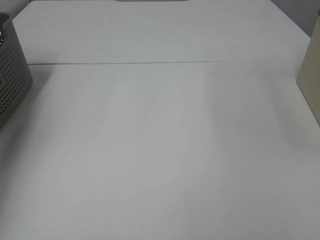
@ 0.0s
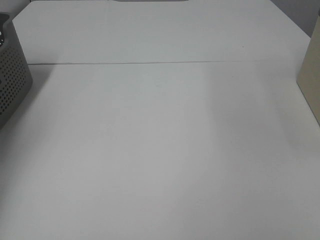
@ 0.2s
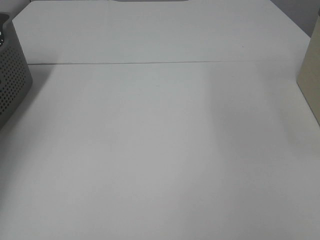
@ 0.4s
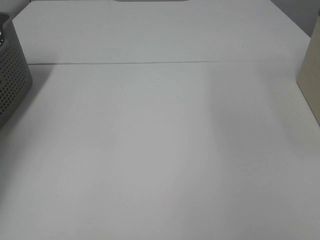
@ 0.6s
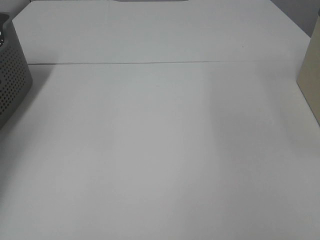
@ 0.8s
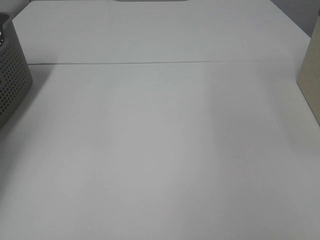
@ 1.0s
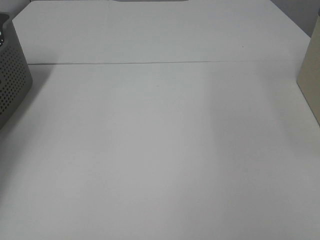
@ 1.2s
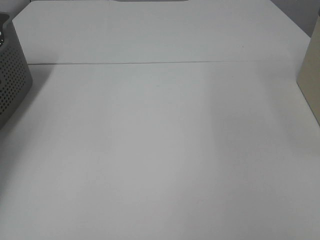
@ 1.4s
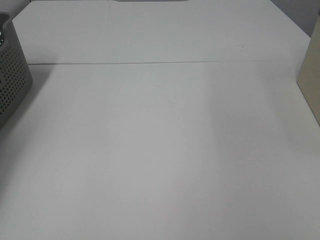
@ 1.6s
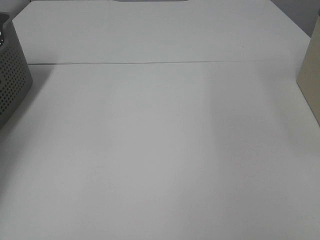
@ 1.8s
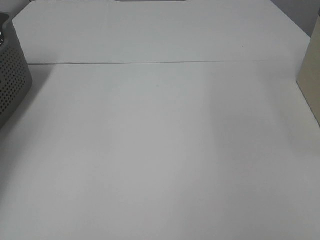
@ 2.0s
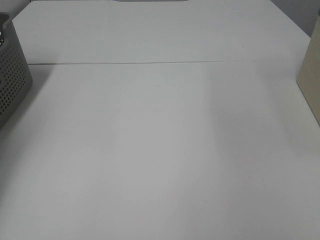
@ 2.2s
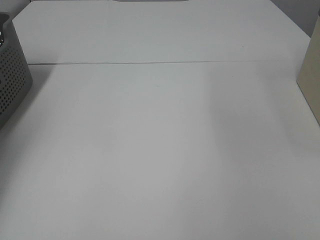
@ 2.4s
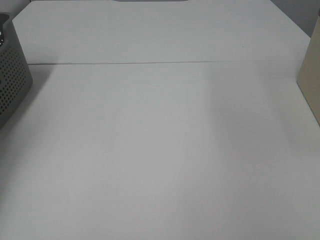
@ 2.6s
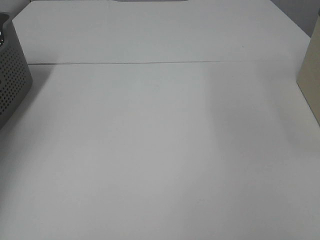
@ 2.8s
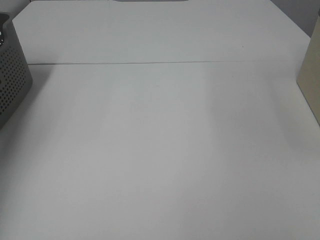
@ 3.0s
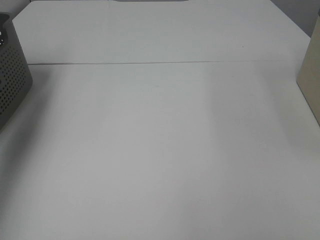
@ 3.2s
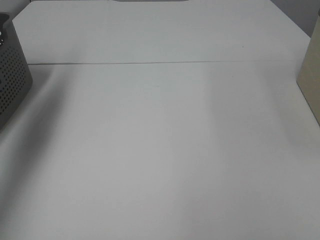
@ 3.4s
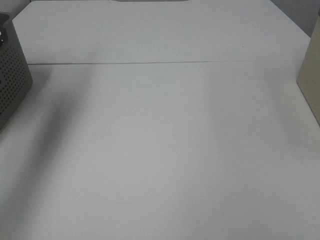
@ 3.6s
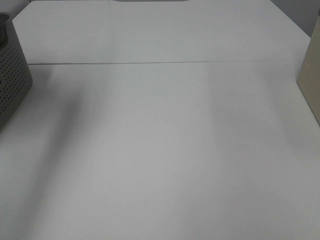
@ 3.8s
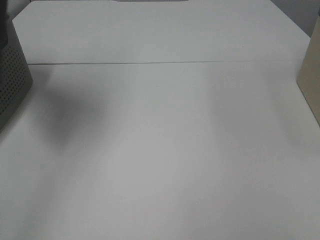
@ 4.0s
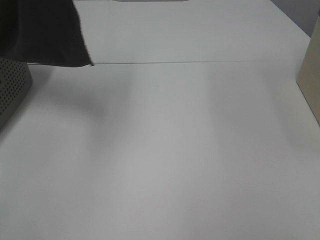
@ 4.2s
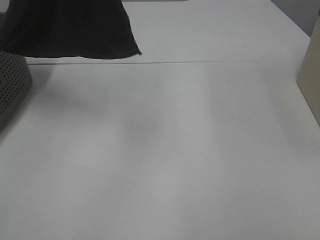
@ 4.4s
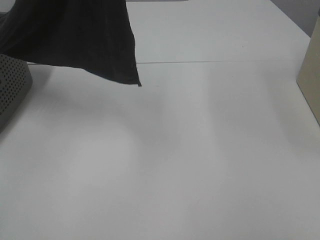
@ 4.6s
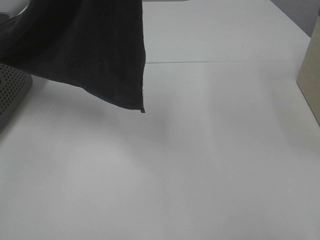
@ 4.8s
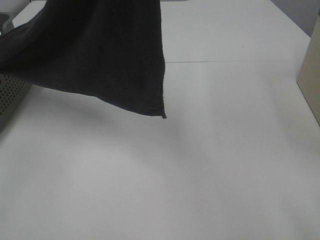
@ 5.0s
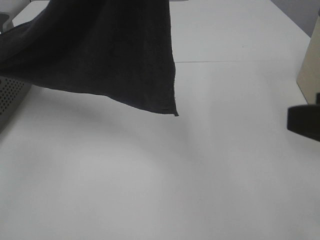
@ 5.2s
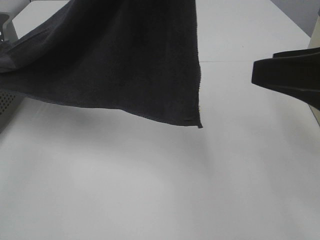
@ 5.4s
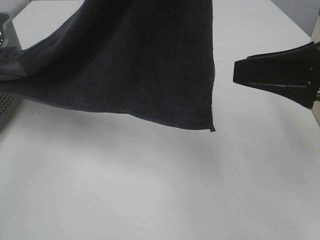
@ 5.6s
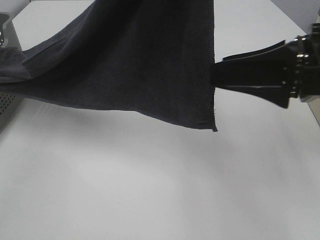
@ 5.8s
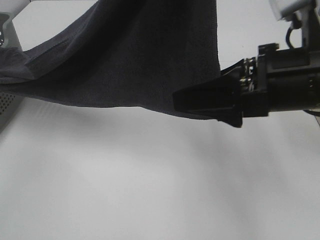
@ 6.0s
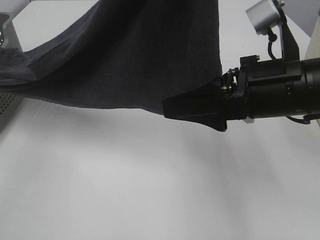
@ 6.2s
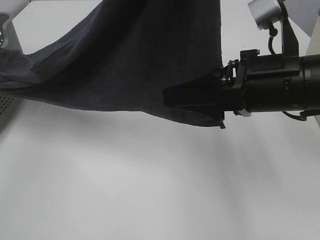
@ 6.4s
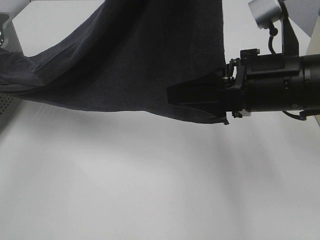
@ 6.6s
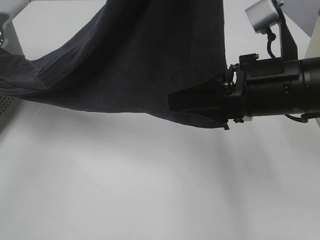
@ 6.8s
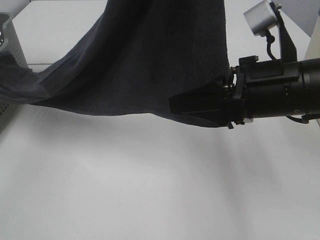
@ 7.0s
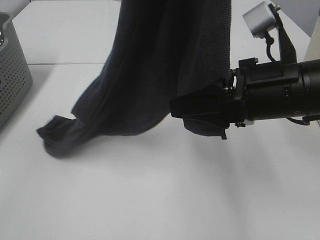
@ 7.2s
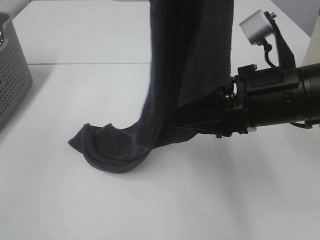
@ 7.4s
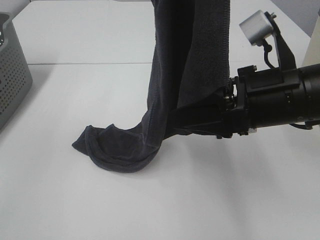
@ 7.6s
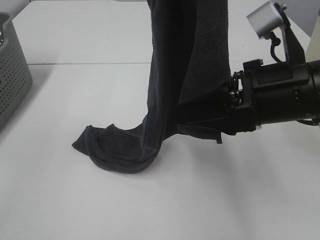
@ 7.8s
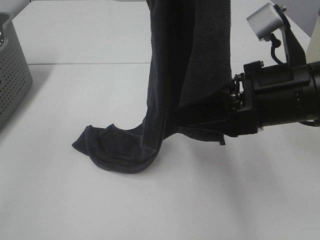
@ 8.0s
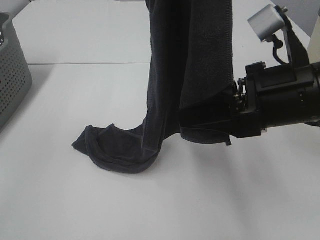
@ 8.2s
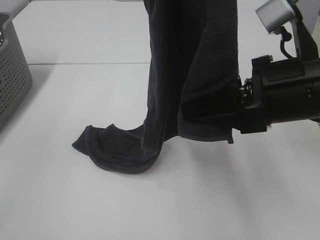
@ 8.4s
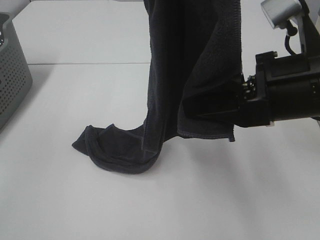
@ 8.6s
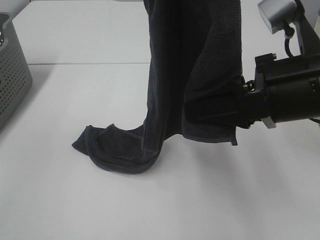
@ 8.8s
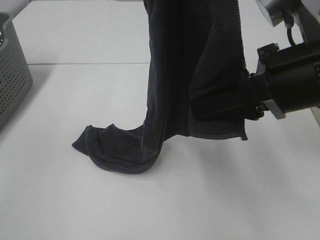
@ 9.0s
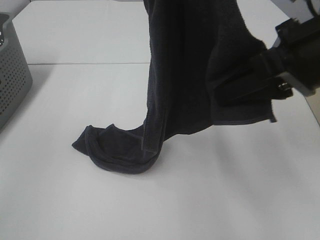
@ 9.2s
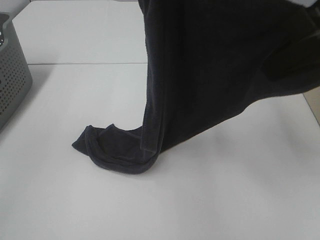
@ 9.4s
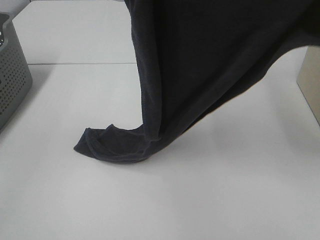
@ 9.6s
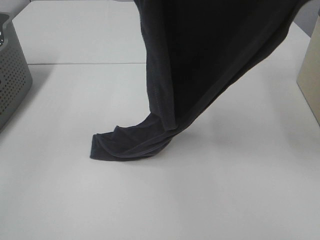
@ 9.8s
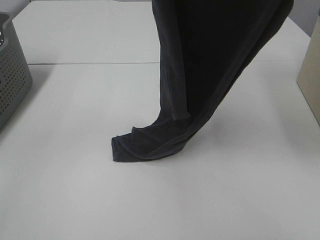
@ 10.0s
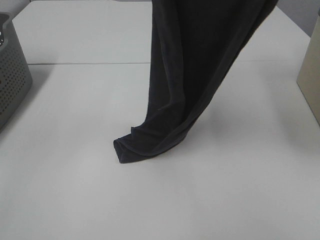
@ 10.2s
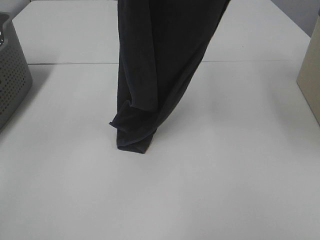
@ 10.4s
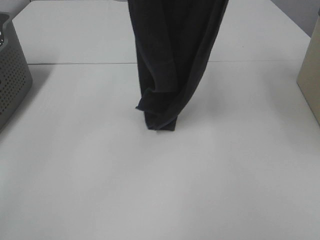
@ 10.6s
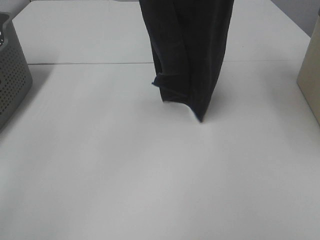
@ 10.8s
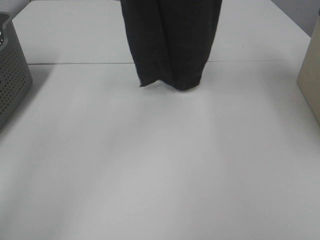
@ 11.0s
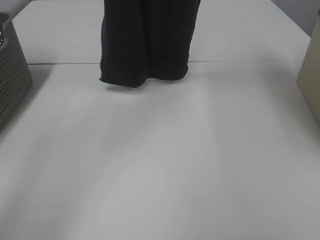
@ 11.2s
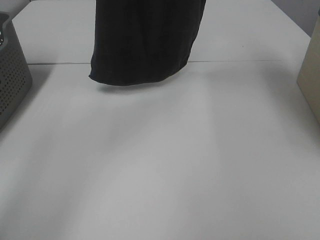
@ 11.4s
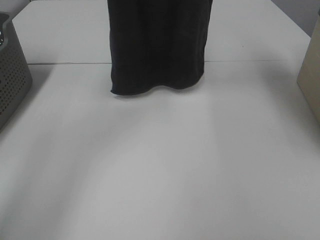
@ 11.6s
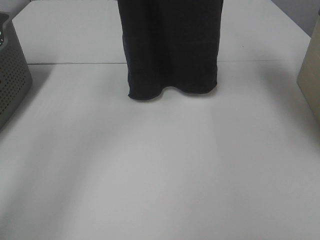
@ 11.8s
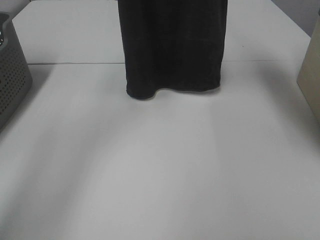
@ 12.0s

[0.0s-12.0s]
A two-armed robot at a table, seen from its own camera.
Task of the whole recording: Remove the towel and place it.
Step, 3.6s to 9.0s: Right hand: grab a corner of the grey towel and straighten it.
0.0s to 1.6s: The left gripper shifts about 10 cm downward, and closes up.
3.0s to 4.4s: The left gripper moves to the right, upward and backward, roughly 35 cm.
4.4s to 6.0s: The left gripper heads to the right, covering approximately 10 cm, while the right gripper heads forward and to the left, covering roughly 25 cm.
6.0s to 7.6s: The right gripper closes.
7.6s to 9.0s: The right gripper closes up.
9.0s to 10.4s: The right gripper goes some 25 cm upward and forward, while the left gripper is displaced forward by approximately 10 cm.
10.4s to 12.0s: The left gripper moves forward and downward, roughly 15 cm; the right gripper moves forward, roughly 10 cm.

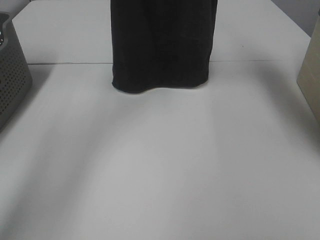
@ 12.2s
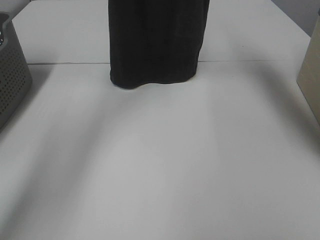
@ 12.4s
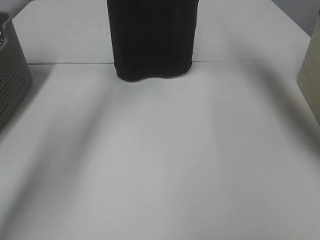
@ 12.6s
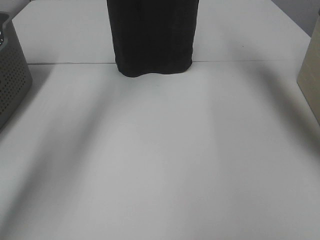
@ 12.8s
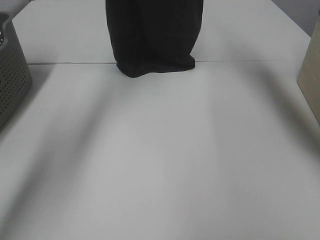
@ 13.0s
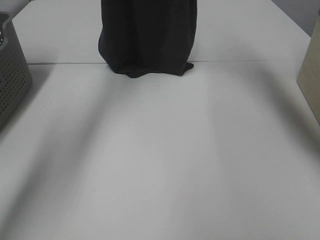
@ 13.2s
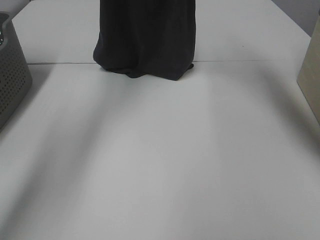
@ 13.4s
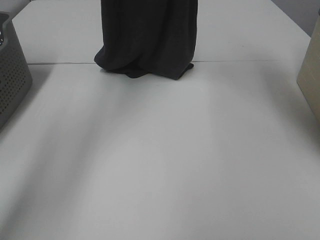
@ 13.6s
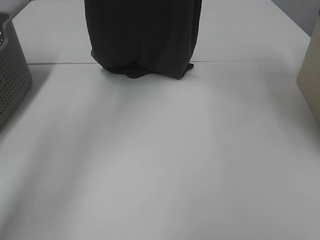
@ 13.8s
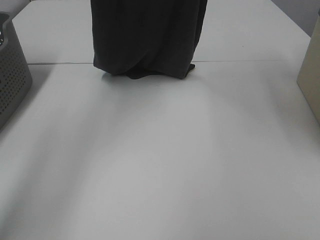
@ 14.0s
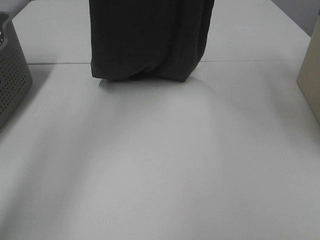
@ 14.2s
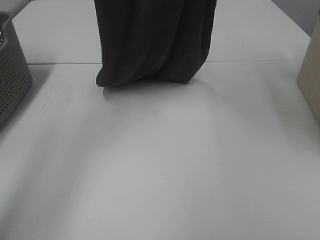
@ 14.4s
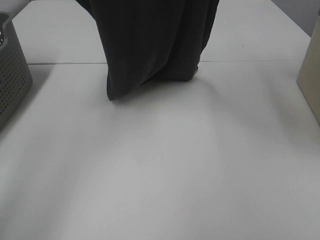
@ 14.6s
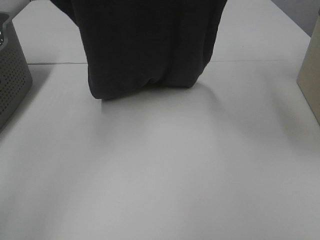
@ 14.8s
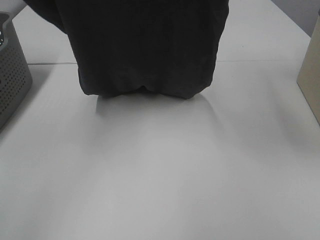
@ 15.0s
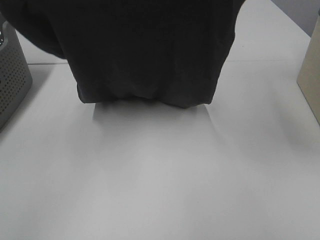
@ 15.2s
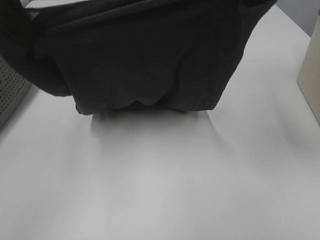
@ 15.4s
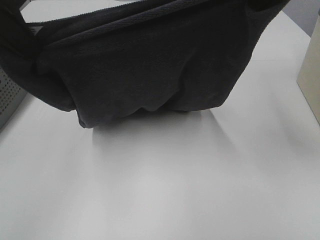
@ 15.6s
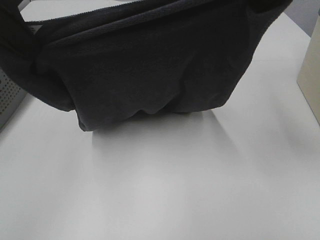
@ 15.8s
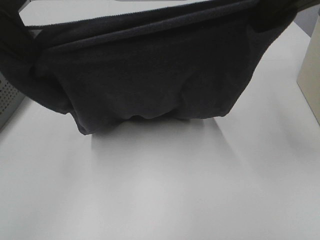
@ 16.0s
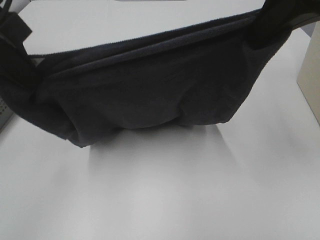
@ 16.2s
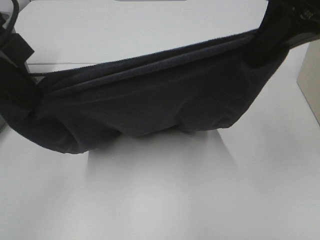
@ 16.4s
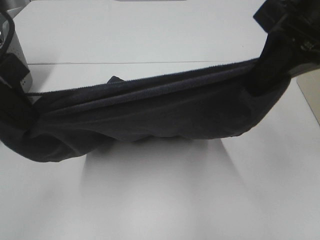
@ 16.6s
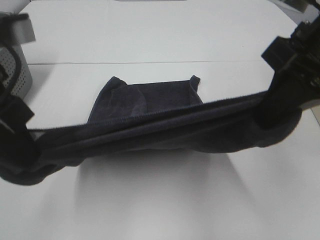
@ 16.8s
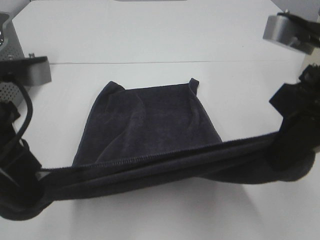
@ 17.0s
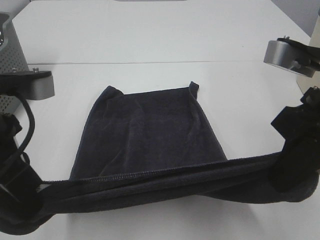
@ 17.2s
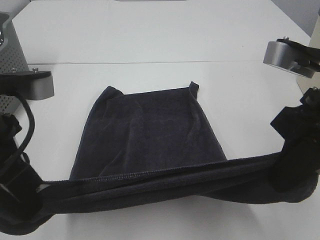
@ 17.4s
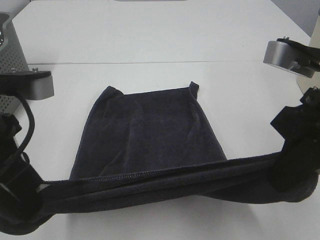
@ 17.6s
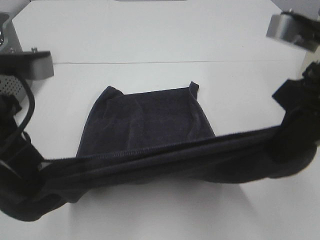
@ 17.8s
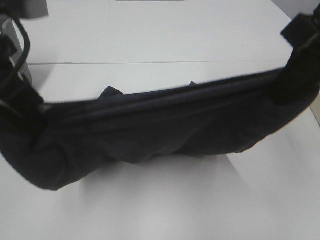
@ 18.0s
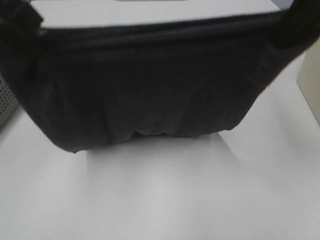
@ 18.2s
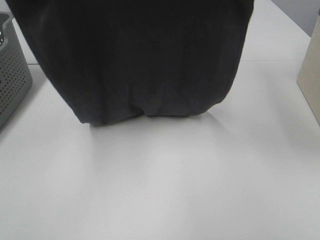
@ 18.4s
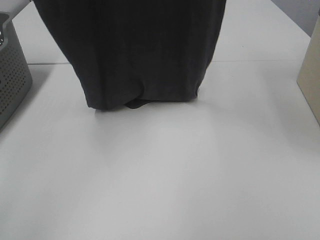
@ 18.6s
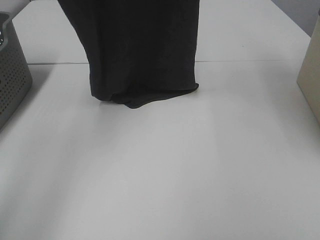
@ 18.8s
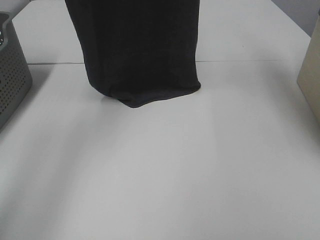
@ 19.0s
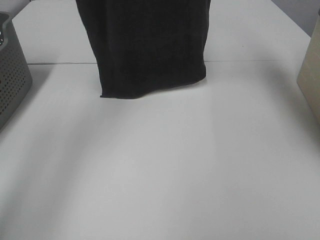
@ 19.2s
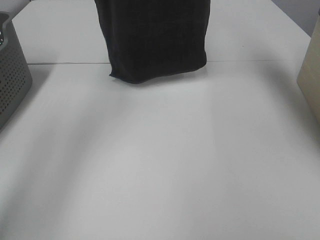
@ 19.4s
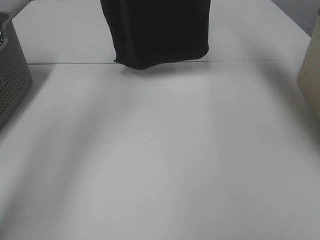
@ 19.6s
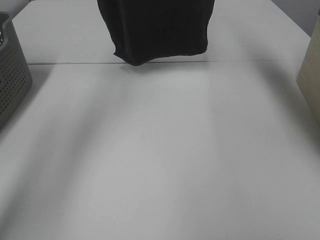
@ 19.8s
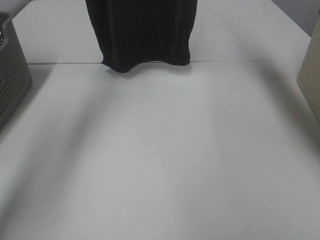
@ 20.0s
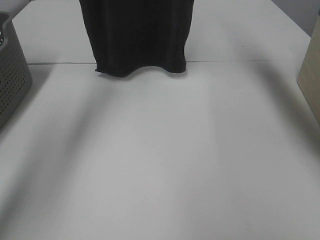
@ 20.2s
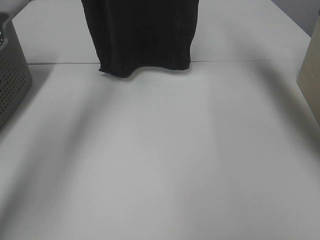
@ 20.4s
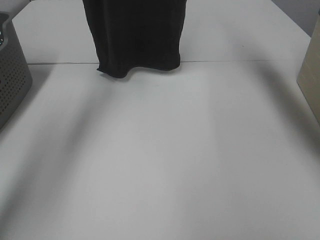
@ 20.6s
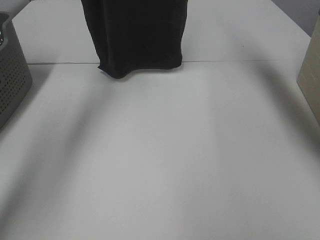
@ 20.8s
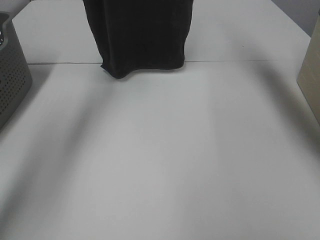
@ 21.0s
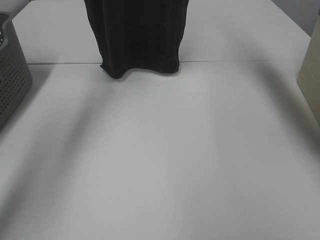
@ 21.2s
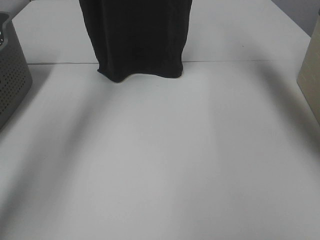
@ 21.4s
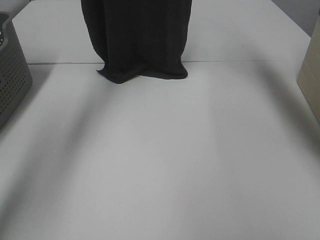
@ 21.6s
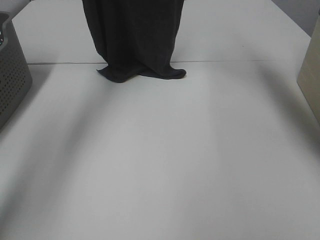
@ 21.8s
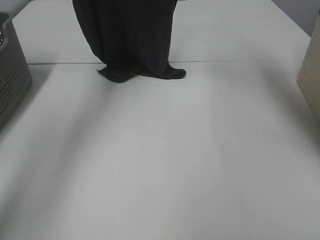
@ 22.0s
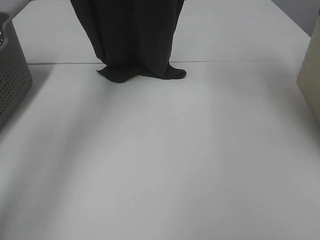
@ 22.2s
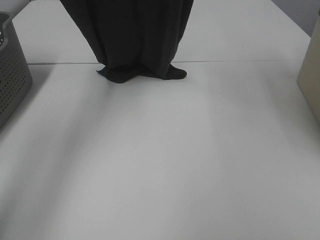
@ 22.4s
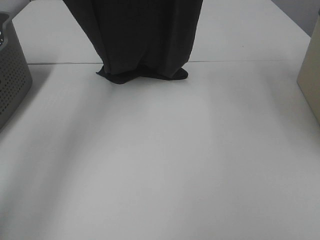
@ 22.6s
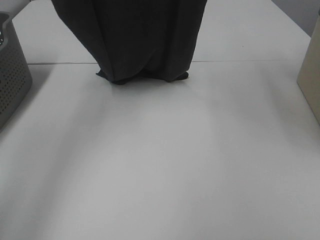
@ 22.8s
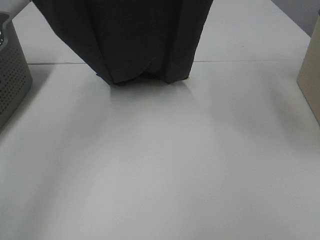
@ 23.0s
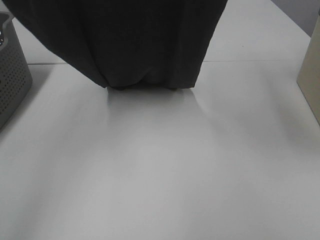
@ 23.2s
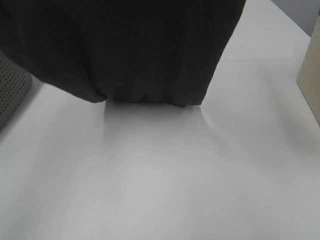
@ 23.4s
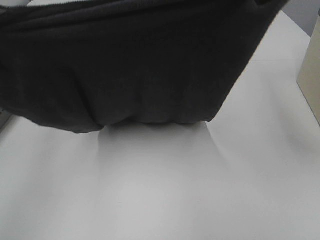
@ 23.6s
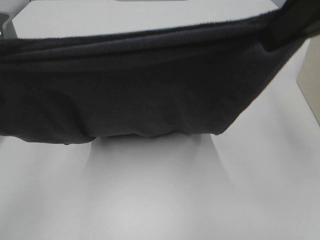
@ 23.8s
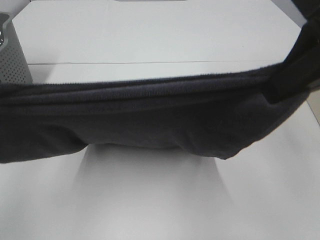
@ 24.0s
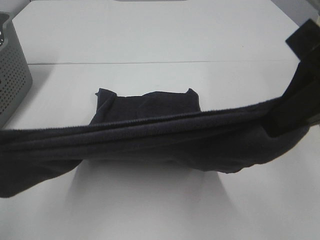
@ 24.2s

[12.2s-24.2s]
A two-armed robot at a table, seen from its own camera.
Task of the whole recording: Remove the towel and place it.
Step, 12.2s to 20.6s: Left hand: spread the grey towel flat on the table.
Step, 12.2s to 20.6s: Right hand: spread the grey towel flat on the table.
12.2s to 13.8s: The left gripper moves about 5 cm.
13.8s to 15.2s: The two grippers go about 15 cm backward.
15.2s to 16.6s: The left gripper is displaced downward and backward by about 10 cm. The right gripper travels downward by roughly 10 cm.
16.6s to 18.2s: The grippers both shift upward by about 5 cm.
18.2s to 19.8s: The grippers both shift forward and upward by approximately 25 cm.
19.8s to 21.2s: The grippers stay close to where they were, moving slightly.
21.2s to 22.6s: The two grippers go about 10 cm backward.
22.6s to 24.2s: The two grippers go roughly 30 cm backward and downward.
